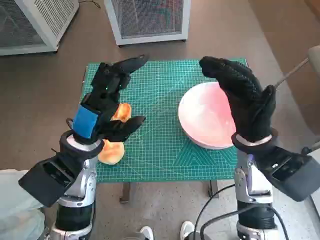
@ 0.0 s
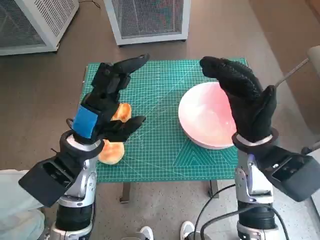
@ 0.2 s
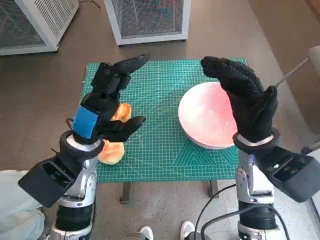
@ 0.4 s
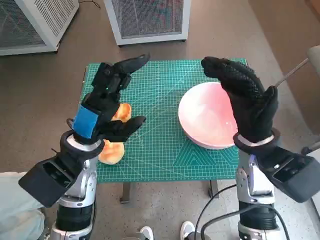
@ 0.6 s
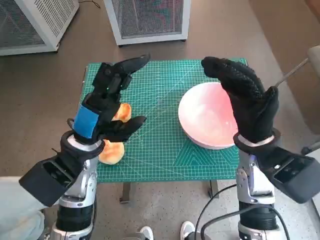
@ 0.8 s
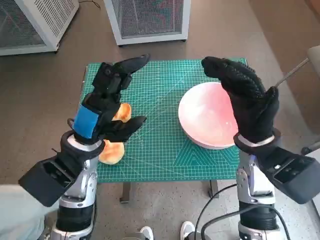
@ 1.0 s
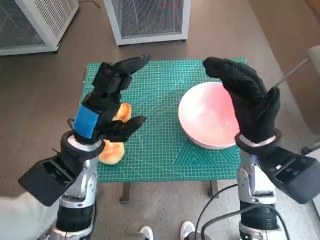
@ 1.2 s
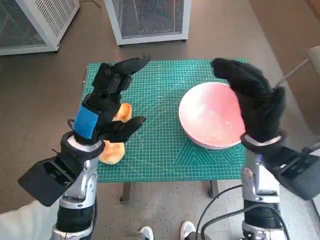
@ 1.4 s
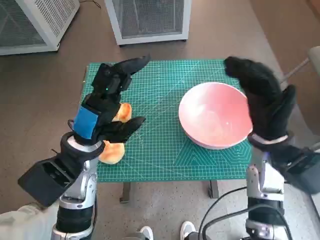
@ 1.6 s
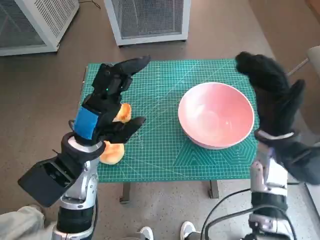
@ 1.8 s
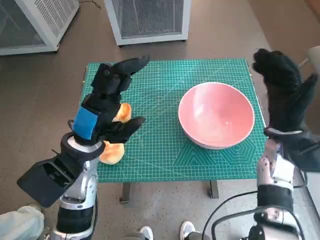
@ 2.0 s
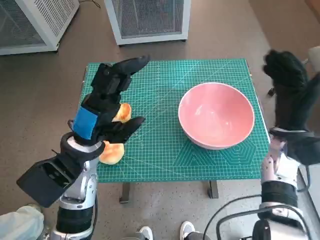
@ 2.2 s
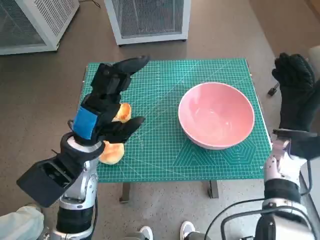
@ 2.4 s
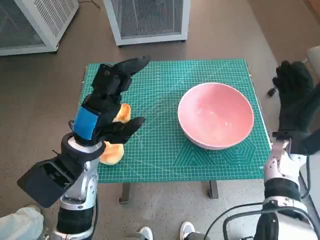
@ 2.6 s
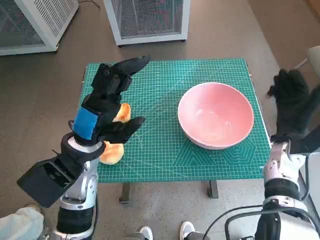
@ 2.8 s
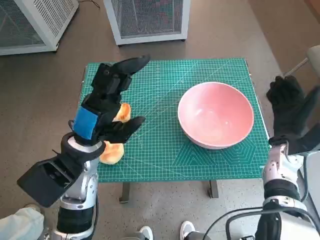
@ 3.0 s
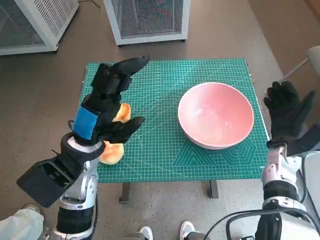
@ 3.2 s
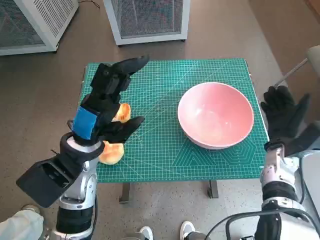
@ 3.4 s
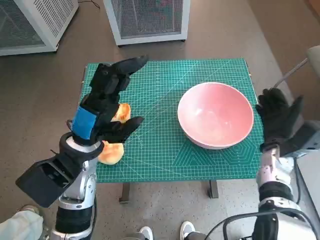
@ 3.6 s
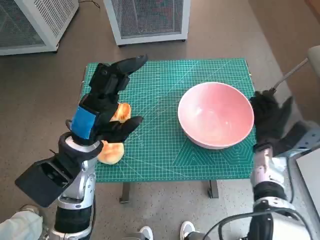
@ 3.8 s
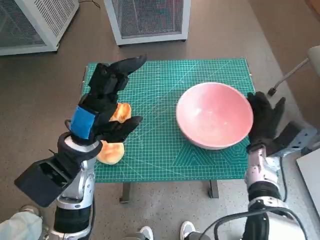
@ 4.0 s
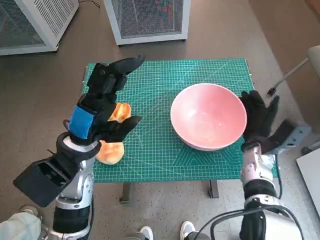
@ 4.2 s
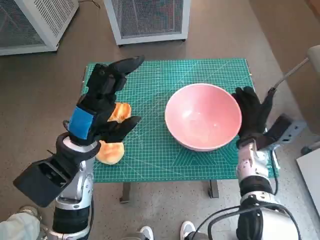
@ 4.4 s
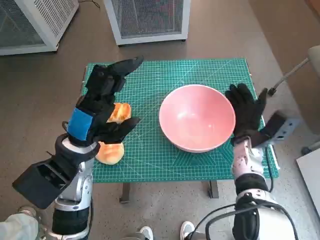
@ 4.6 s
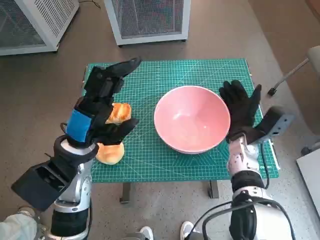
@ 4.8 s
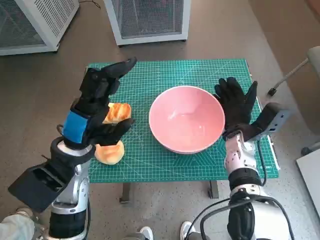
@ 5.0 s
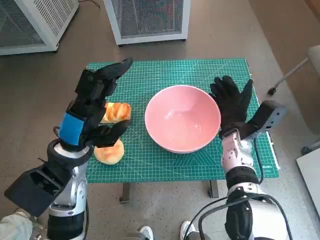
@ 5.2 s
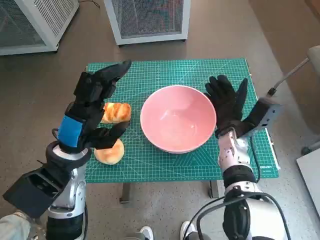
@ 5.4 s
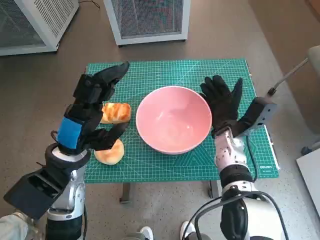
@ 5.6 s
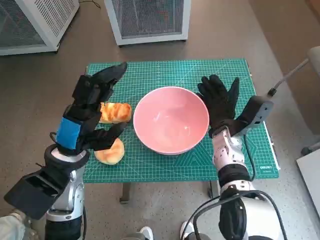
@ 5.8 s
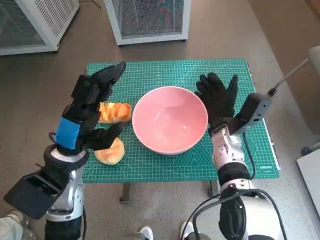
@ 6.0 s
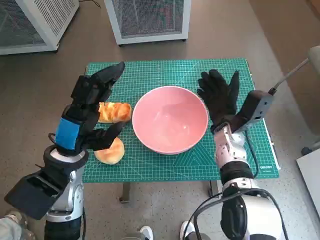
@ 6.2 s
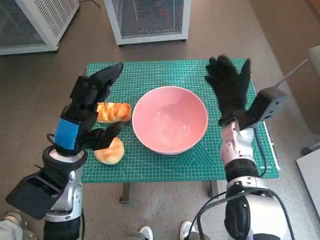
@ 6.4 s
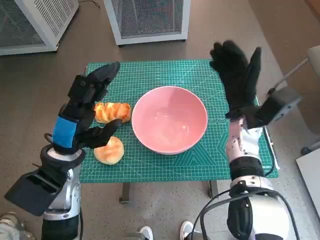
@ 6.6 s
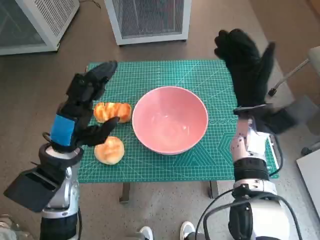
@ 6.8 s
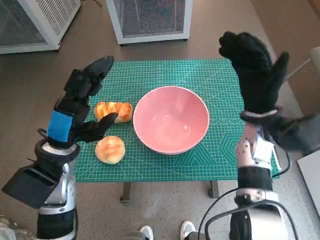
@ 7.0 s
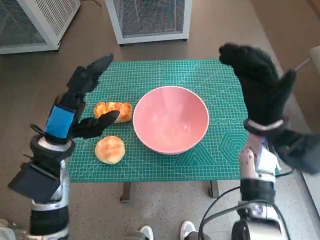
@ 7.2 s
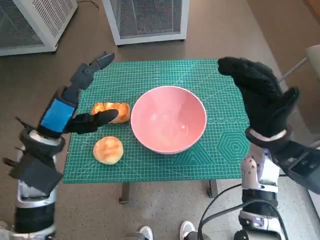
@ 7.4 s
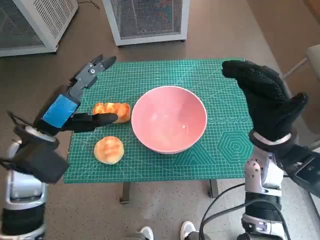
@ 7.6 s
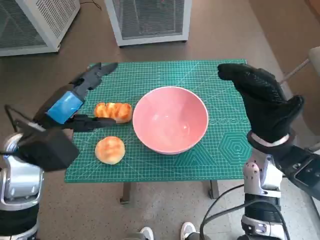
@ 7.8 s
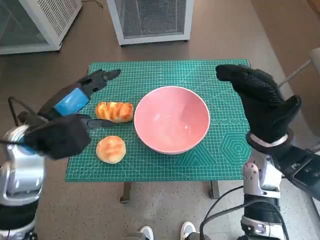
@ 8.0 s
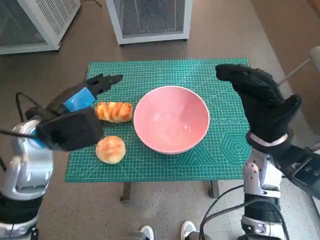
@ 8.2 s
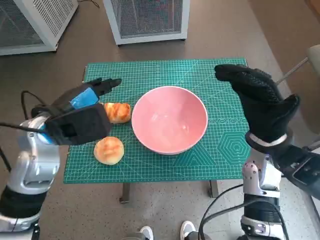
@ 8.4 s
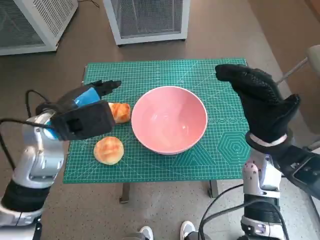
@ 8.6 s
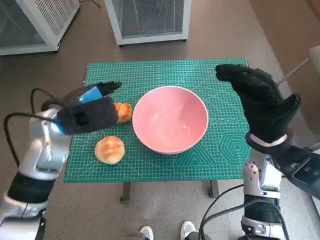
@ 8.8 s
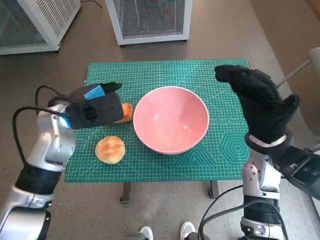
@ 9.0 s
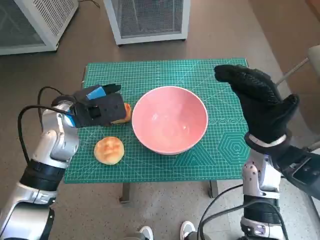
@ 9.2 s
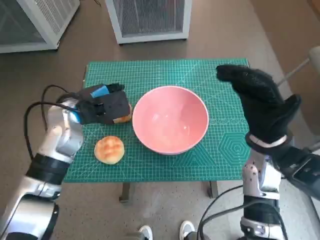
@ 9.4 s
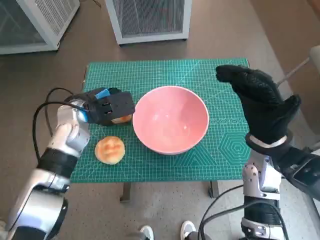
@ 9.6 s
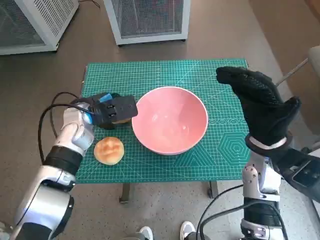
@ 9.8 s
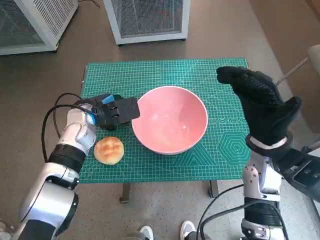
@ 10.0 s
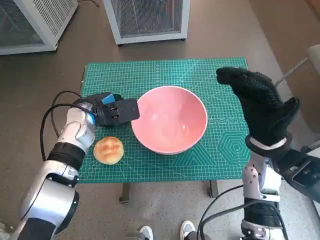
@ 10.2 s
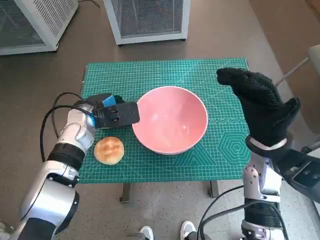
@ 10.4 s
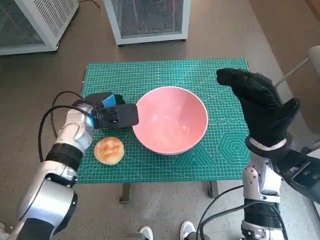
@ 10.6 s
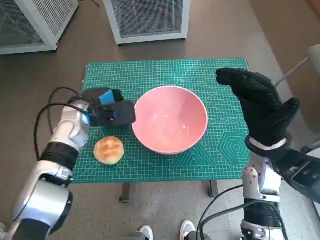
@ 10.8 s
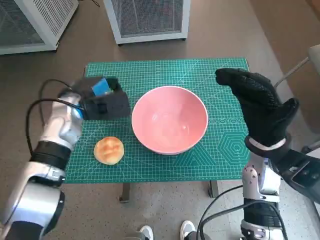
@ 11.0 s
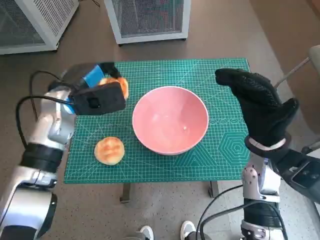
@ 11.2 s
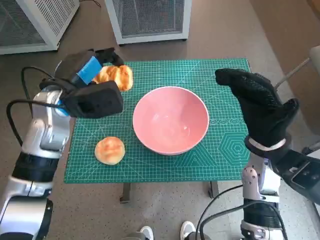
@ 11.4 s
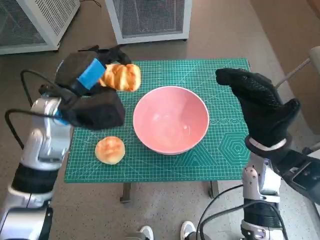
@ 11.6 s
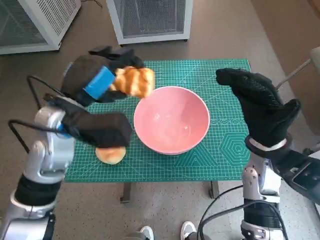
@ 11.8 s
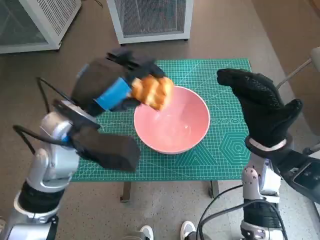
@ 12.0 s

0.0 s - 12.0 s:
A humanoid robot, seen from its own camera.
Task of the whole recording: Push the bowl into the center of the table and put the bread into the bowl.
Step, 0.0 s - 6.2 s: Move the pink bowl to the center of table with right hand.
Step, 6.4 s - 10.2 s: Grasp the long bread with left hand.
1.6 s - 3.0 s: The right hand heads downward and to the right, covering approximately 10 cm.
3.0 s - 4.4 s: The right hand heads to the left, covering roughly 5 cm.
4.4 s - 6.0 s: The right hand travels to the left by approximately 5 cm.
6.0 s - 7.6 s: The left hand ends up roughly 5 cm from where it was; the right hand goes about 10 cm upward, to the right and backward.
7.6 s - 9.0 s: The left hand goes some 5 cm forward.
9.0 s - 10.4 s: The left hand heads downward, covering about 5 cm.
10.4 s - 12.0 s: The left hand is displaced upward and backward by approximately 15 cm.

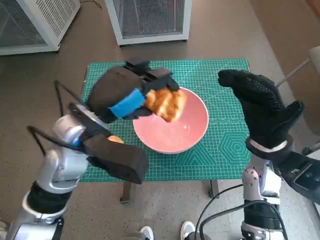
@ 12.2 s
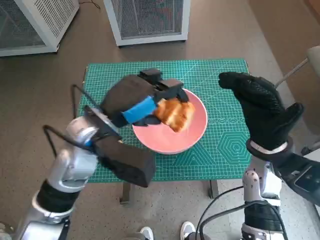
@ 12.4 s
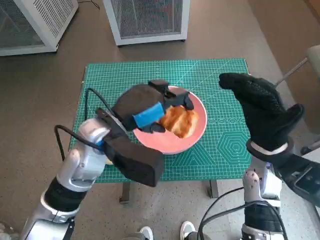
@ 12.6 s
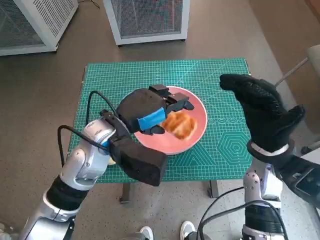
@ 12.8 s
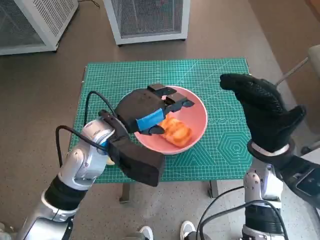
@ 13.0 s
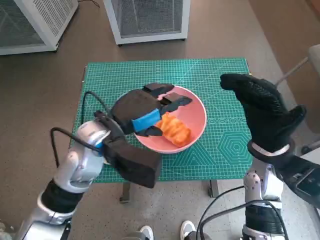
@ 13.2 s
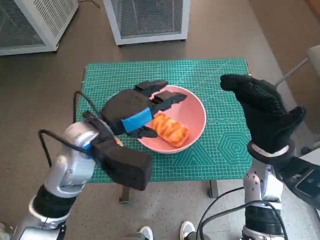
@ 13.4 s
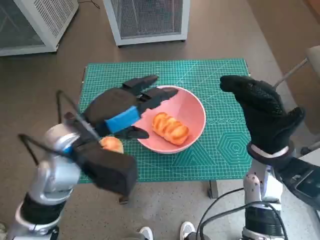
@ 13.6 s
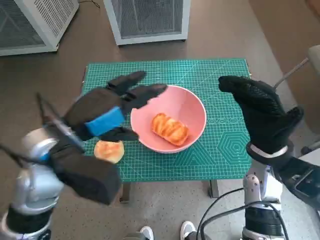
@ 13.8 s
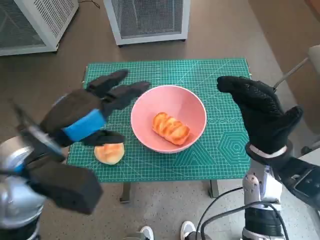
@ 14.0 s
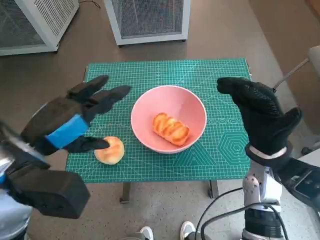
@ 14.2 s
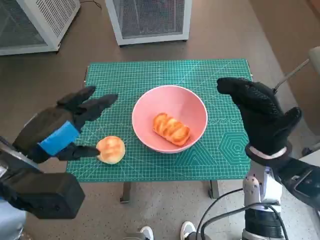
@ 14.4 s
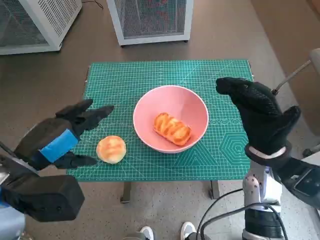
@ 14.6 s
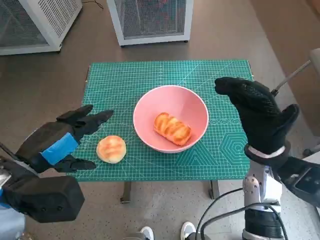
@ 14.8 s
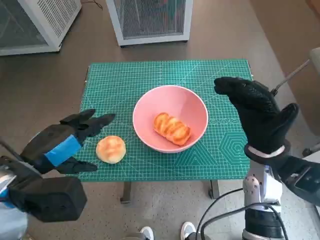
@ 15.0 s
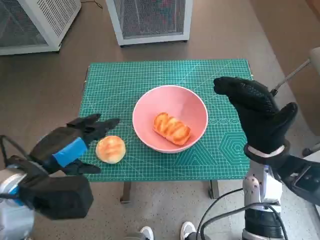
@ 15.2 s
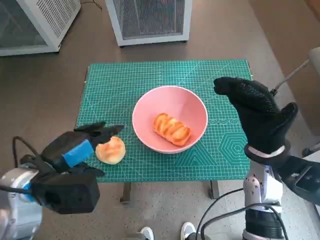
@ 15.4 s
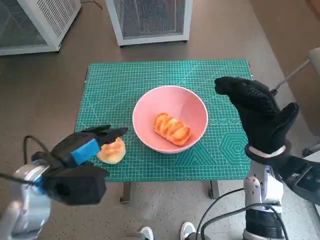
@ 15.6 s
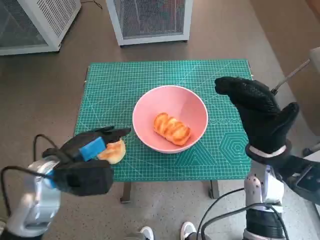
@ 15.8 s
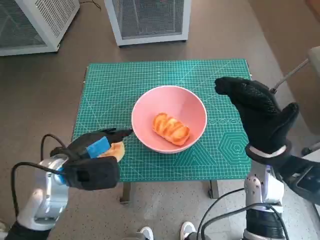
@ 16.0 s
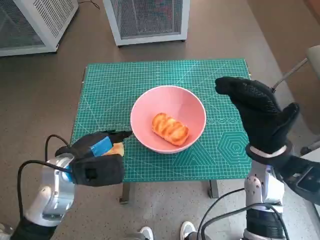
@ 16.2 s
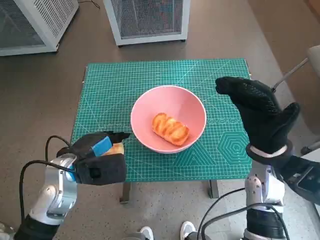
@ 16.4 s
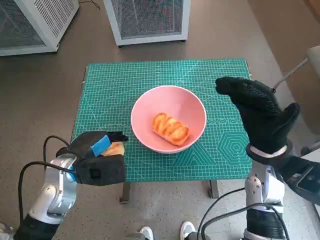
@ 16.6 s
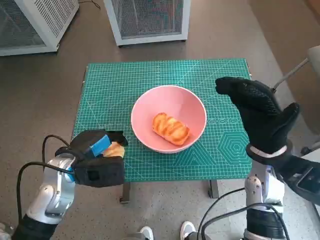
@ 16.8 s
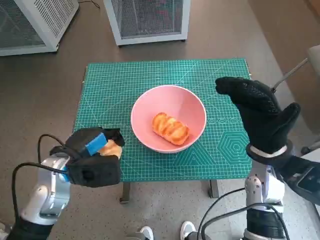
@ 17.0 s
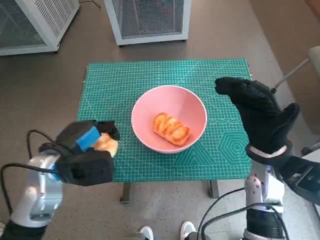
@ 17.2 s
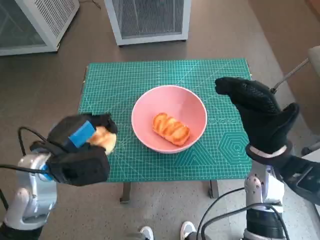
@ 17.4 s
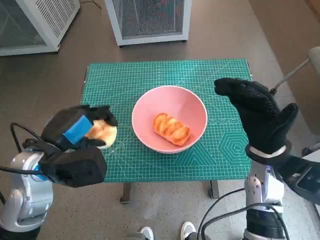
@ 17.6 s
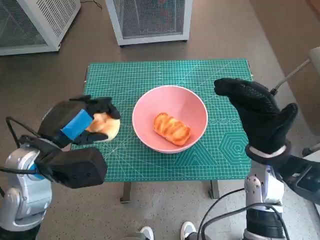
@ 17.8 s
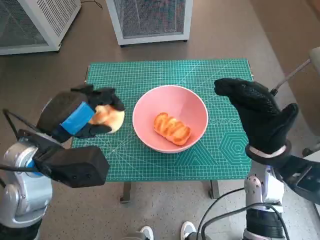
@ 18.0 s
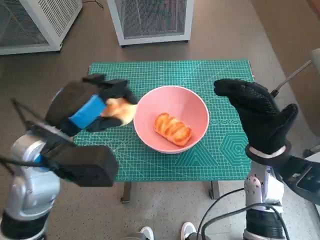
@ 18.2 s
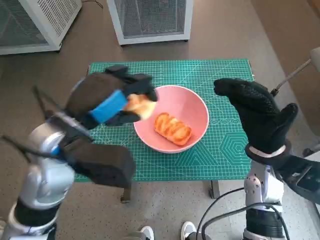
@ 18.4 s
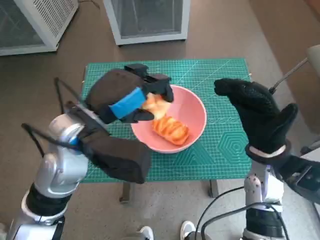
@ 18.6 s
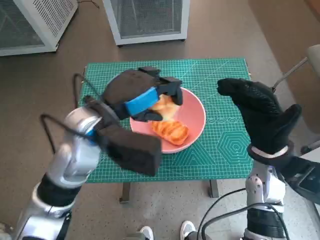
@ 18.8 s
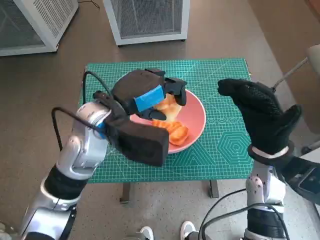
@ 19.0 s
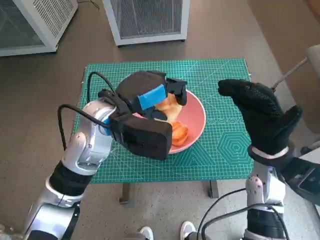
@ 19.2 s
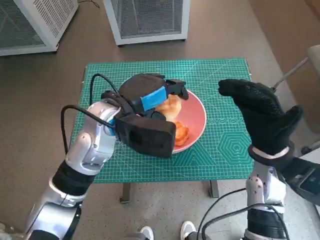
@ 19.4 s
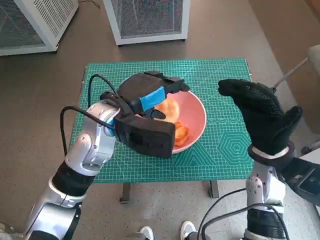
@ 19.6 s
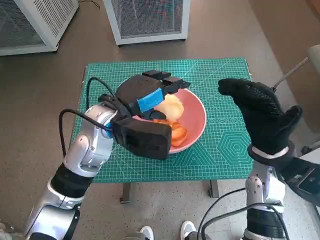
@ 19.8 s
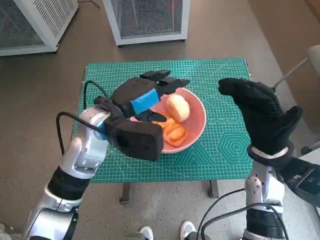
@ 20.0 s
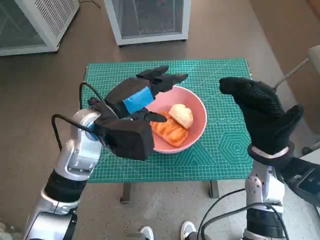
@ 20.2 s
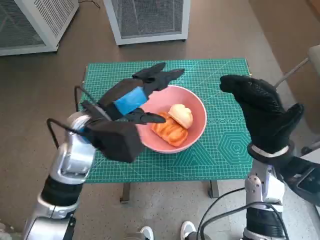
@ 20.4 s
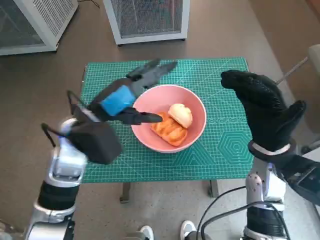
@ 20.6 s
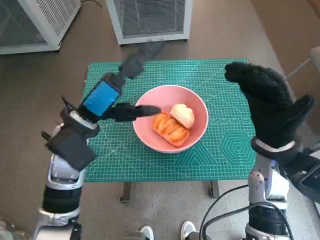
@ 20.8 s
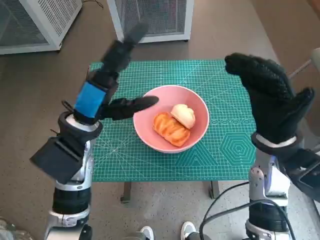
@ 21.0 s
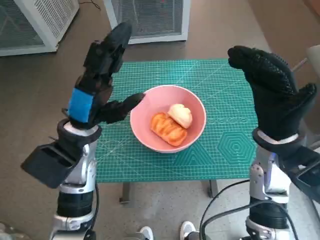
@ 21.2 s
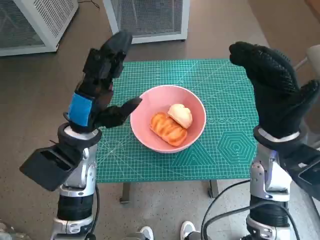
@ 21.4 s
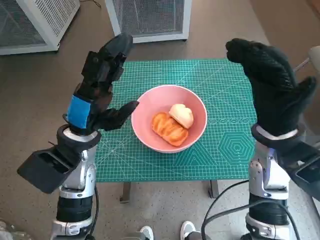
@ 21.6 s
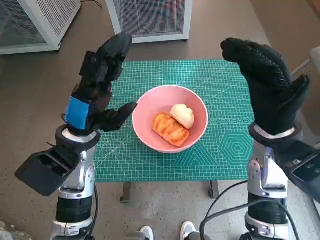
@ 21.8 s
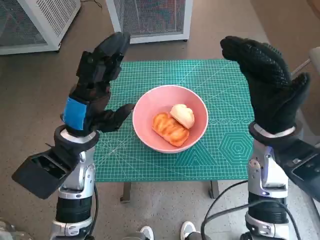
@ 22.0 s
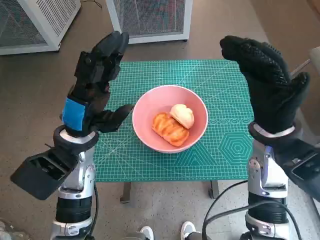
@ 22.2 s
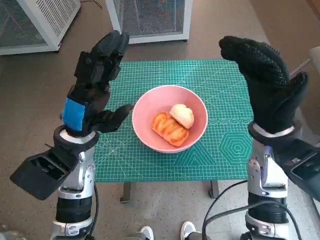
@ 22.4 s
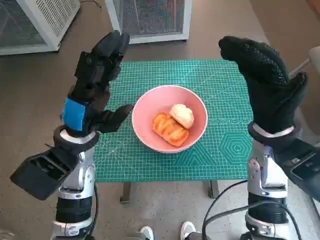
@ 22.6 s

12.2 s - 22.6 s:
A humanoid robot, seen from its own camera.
Task of the whole recording: Push the bowl into the center of the table and put the bread into the bowl.
Step, 13.2 s - 16.4 s: Grasp the round bread with left hand.
Step, 16.6 s - 19.6 s: Place the round bread in pink bowl with left hand.
13.6 s - 15.2 s: The left hand shifts approximately 10 cm to the left and backward.
15.2 s - 16.6 s: The left hand goes approximately 10 cm downward and forward.
16.6 s - 18.2 s: The left hand is displaced upward by about 10 cm.
18.2 s - 19.6 s: The left hand travels to the right and forward by about 10 cm.
19.6 s - 21.2 s: The left hand goes approximately 5 cm to the left.
21.2 s - 22.6 s: The hands move only a little.
